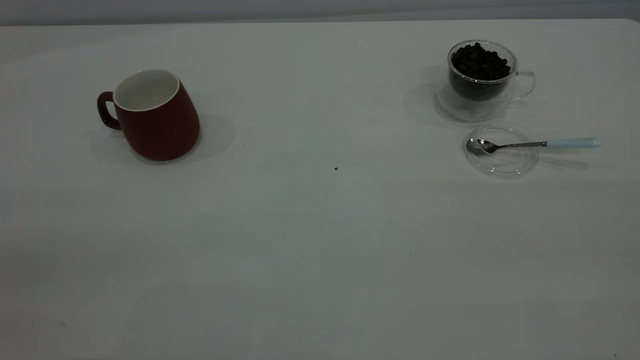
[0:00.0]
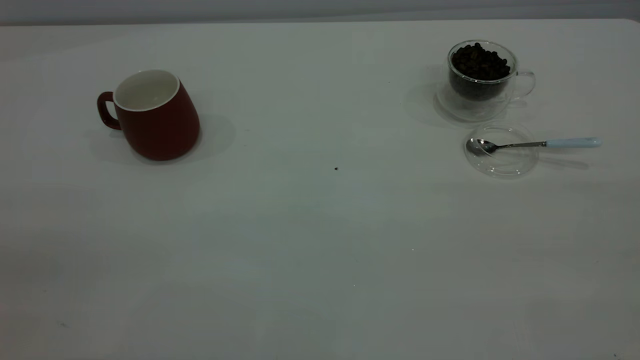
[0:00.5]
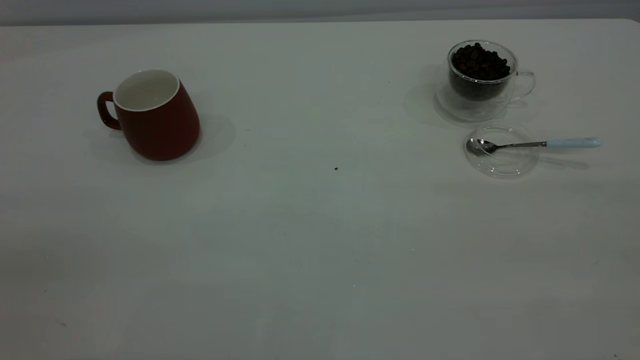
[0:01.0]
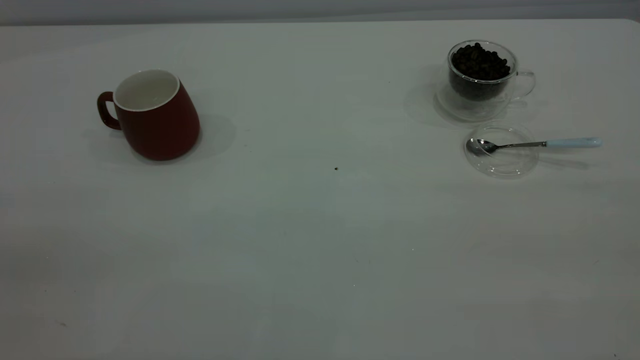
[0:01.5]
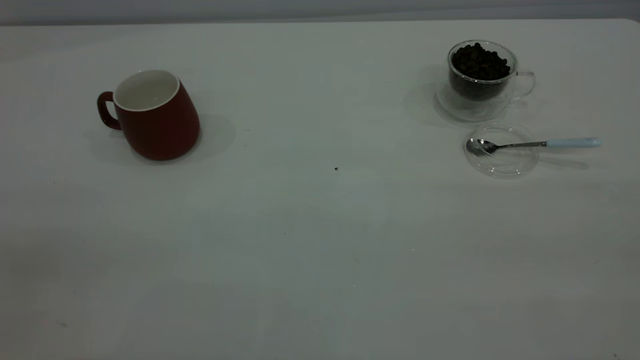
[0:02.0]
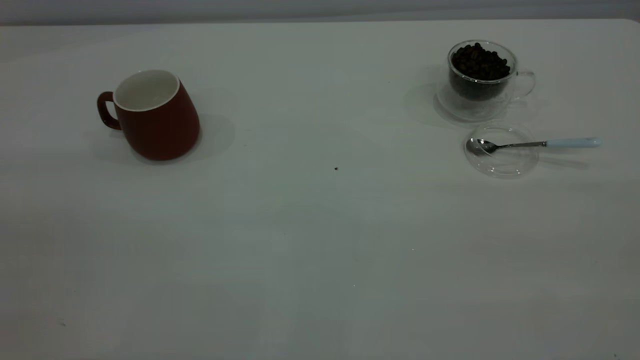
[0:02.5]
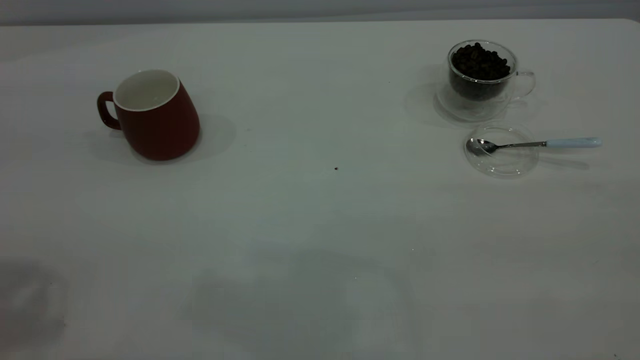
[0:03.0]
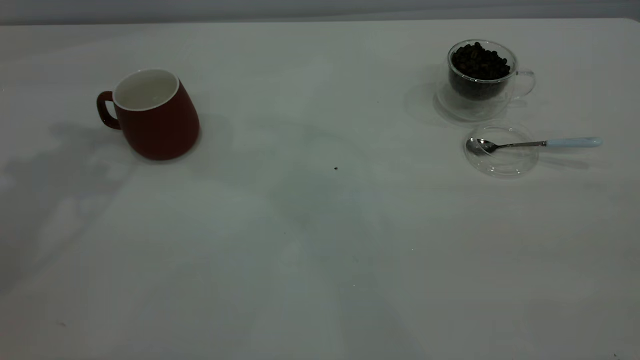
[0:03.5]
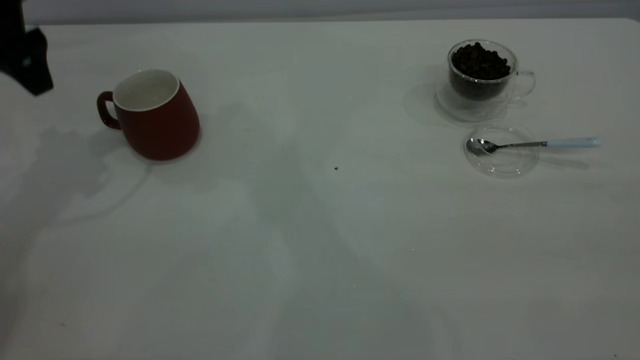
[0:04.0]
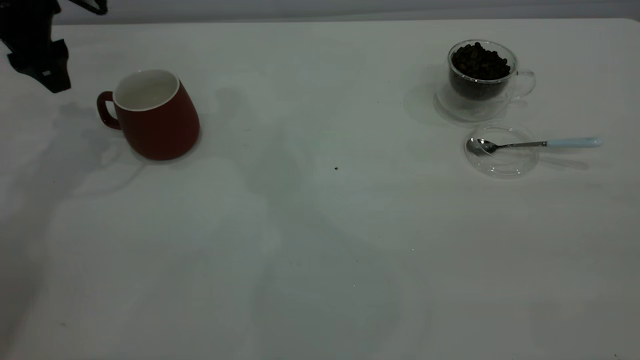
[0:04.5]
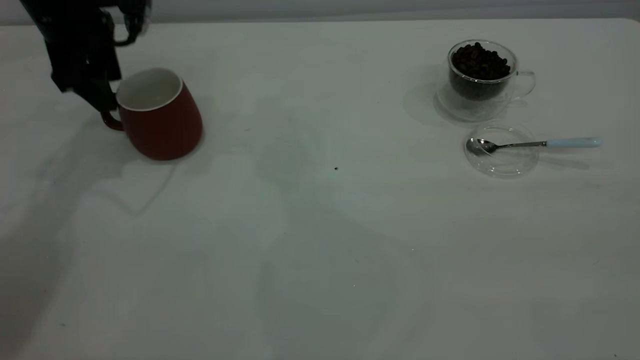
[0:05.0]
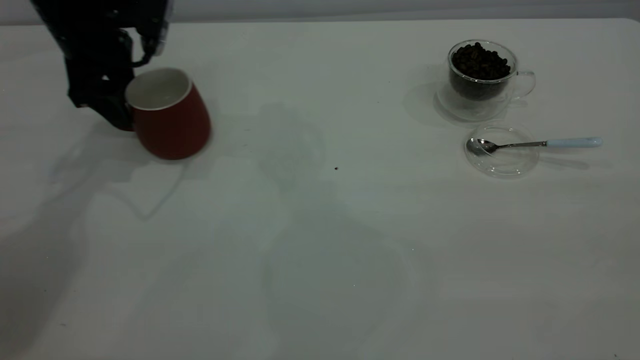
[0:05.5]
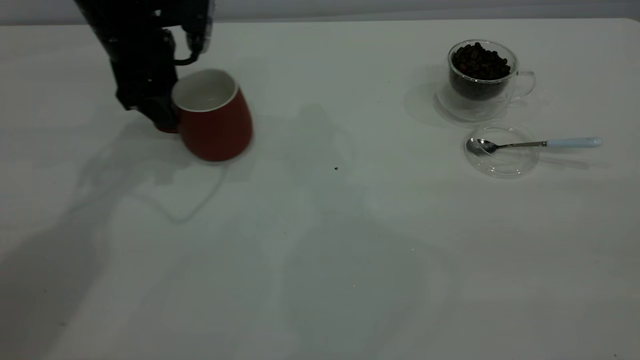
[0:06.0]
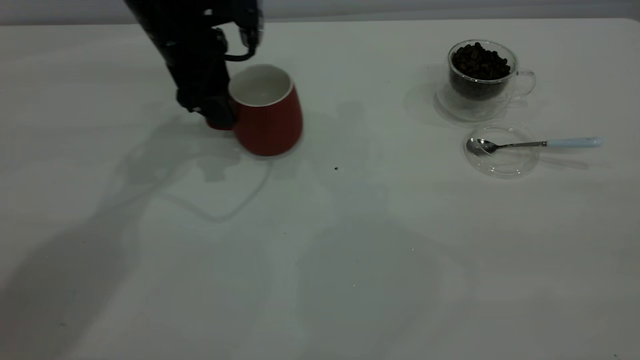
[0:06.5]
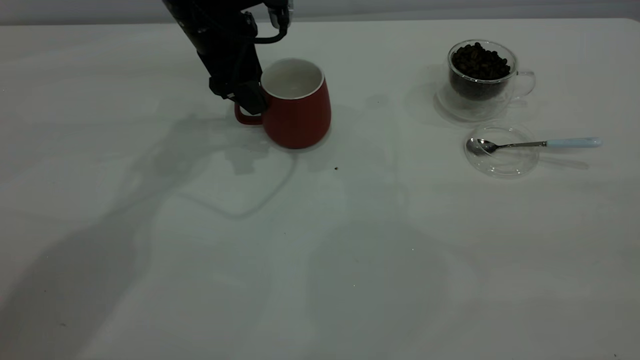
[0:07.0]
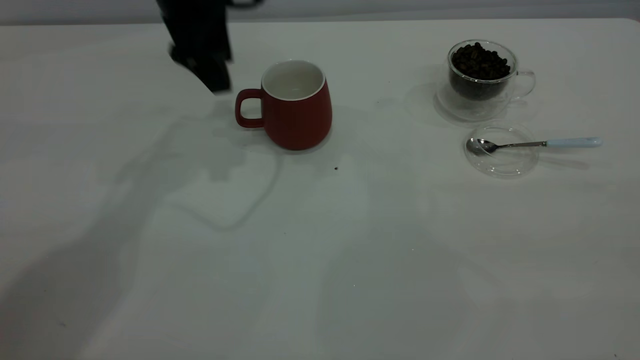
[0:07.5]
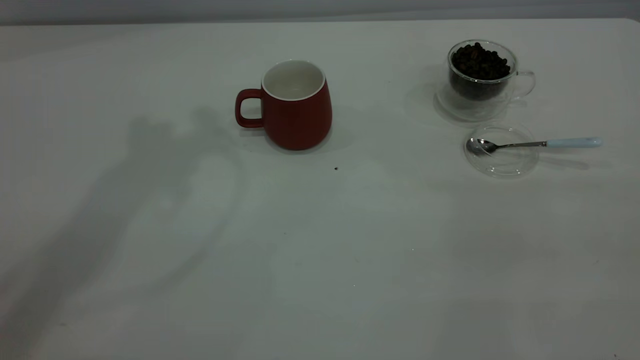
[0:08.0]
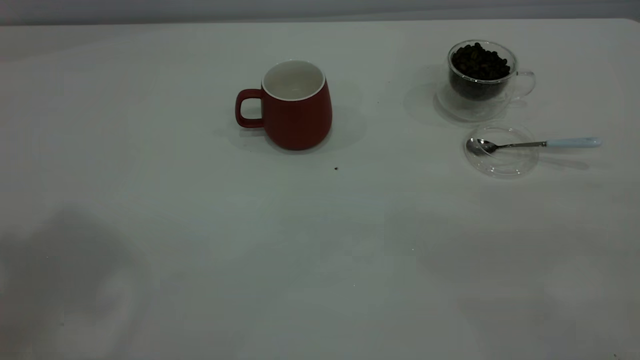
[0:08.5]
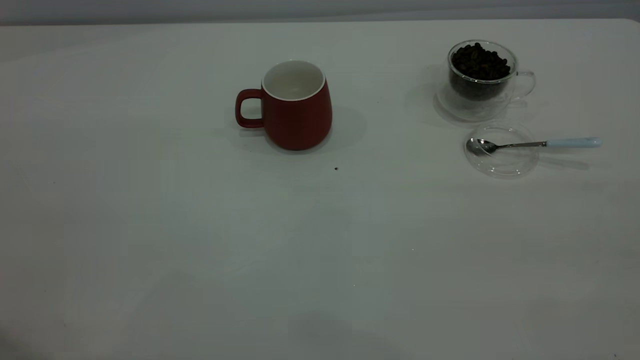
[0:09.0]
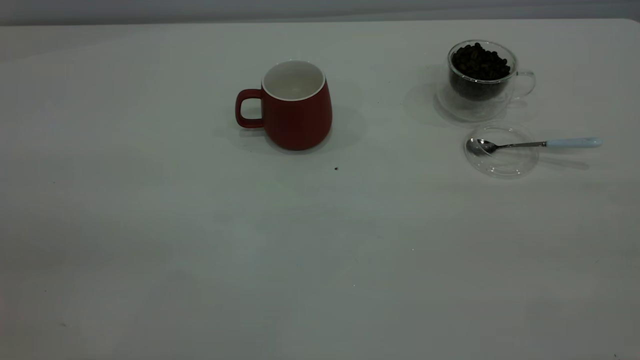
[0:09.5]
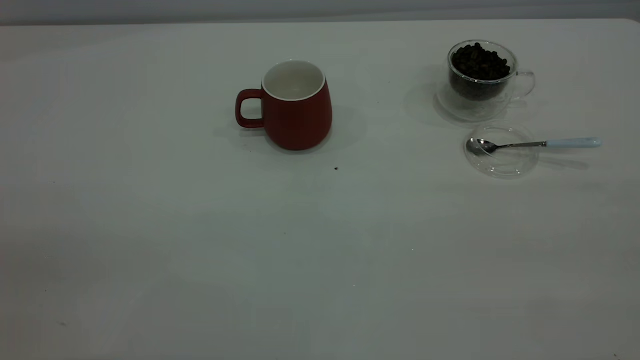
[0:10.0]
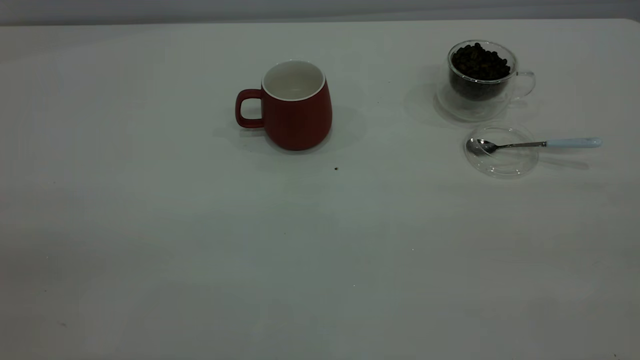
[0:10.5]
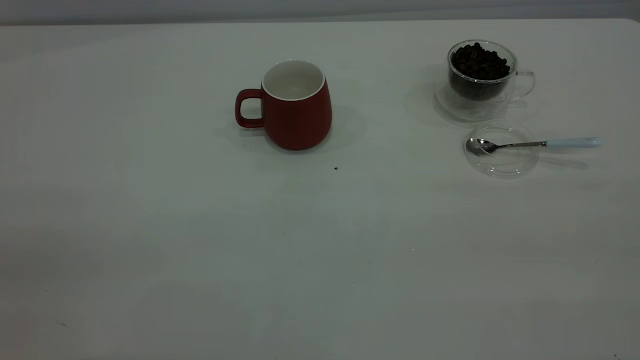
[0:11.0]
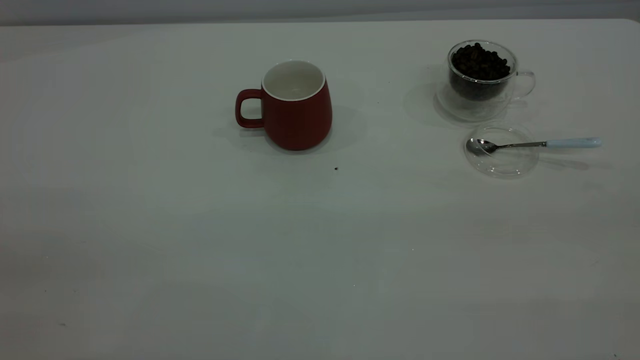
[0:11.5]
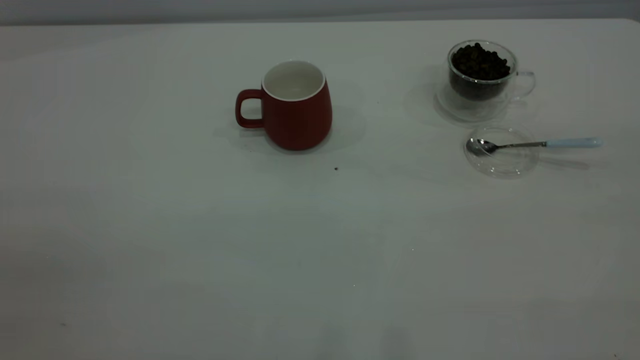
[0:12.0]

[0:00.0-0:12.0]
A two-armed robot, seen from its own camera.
Task of the whole recording: the left gripper place the red cup in the center of the table, the right gripper take the blue spoon from the cup lid and scoop out the coffee beans from the coffee cup and put them into the red cup, the right gripper put the spoon back into the cup lid.
Step, 0:00.0 to 0:07.0: Move the cup to the center of view.
0:00.0 to 0:02.0: The two grippers keep their place.
0:02.0 to 0:04.0: The left gripper goes approximately 40 cm forward.
0:04.0 to 0:06.0: The left gripper travels to the right and downward by roughly 10 cm.
0:06.0 to 0:08.0: The left gripper heads upward, covering approximately 30 cm.

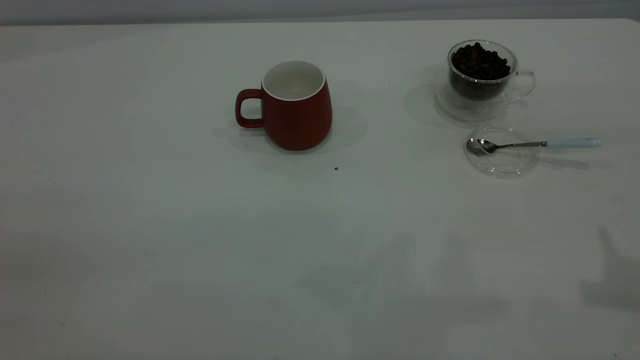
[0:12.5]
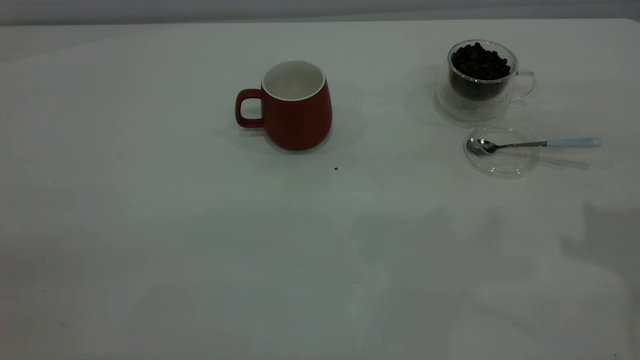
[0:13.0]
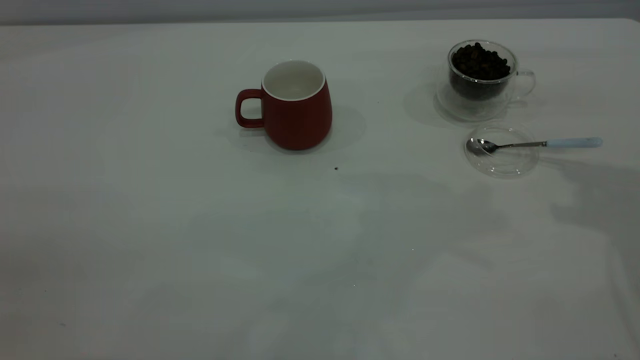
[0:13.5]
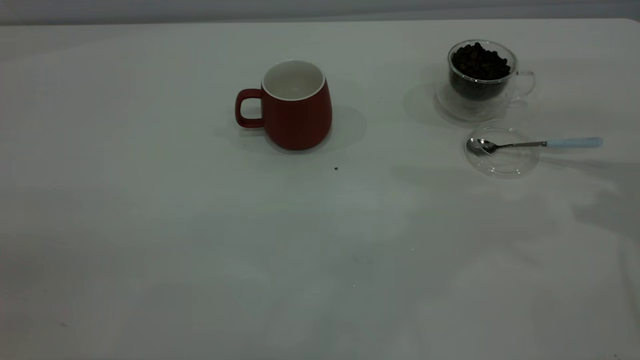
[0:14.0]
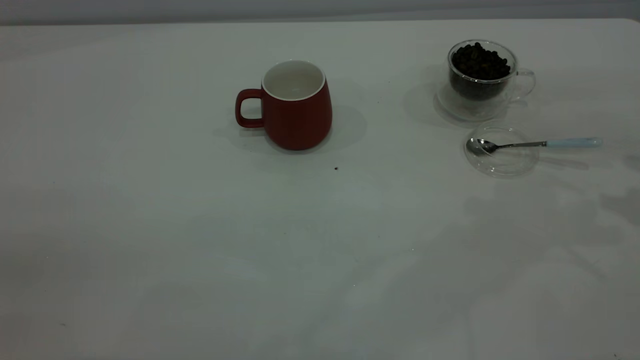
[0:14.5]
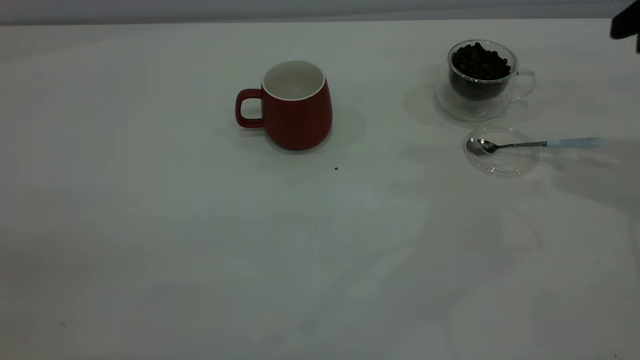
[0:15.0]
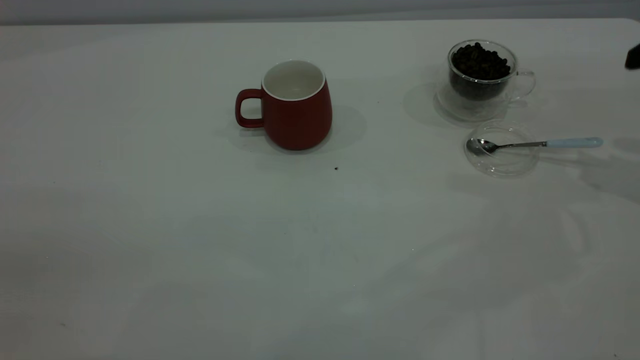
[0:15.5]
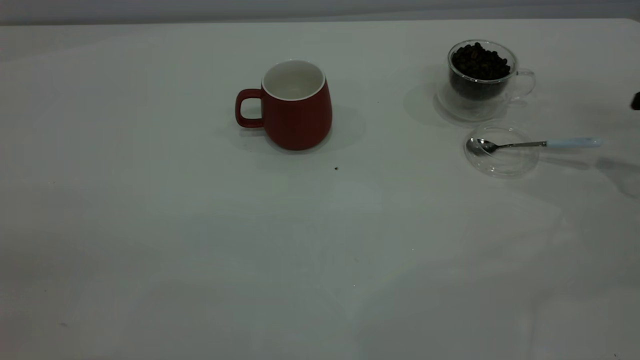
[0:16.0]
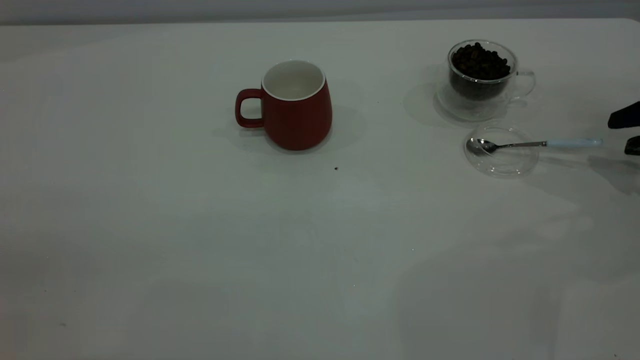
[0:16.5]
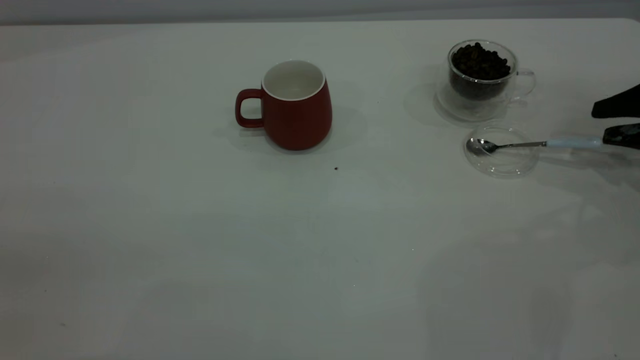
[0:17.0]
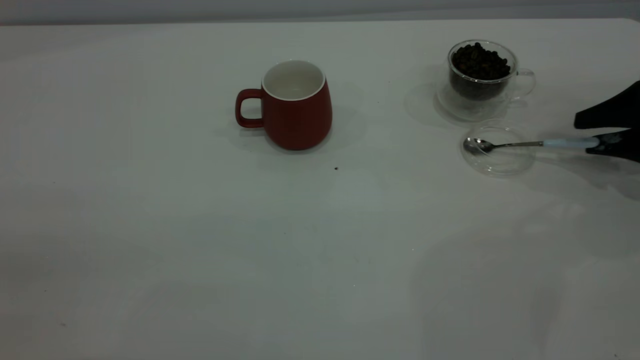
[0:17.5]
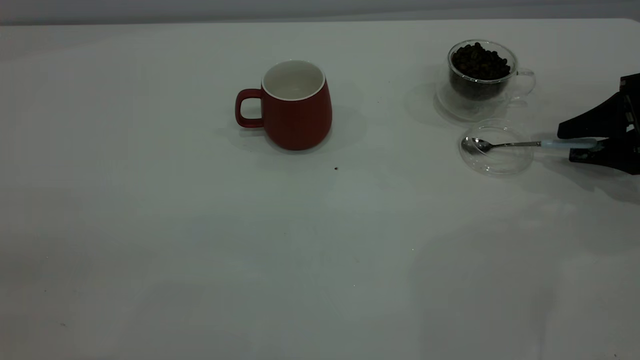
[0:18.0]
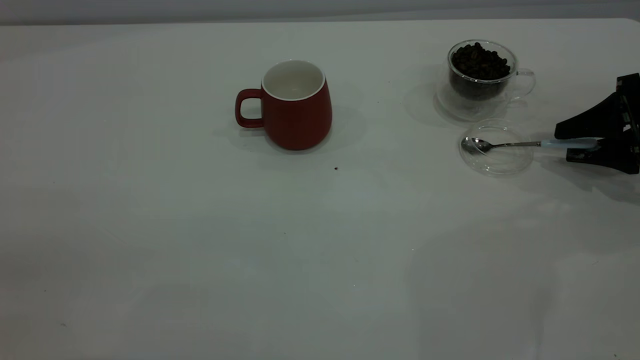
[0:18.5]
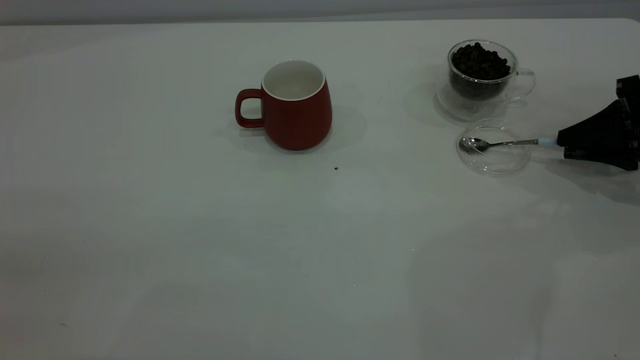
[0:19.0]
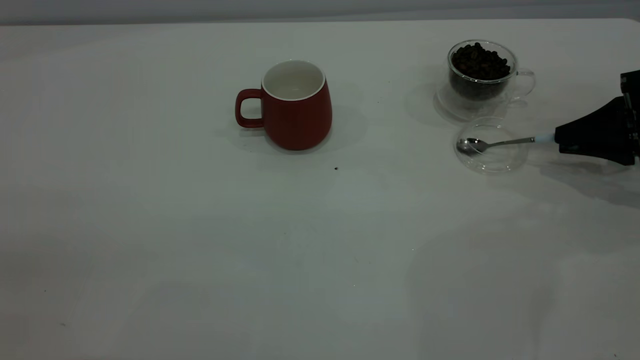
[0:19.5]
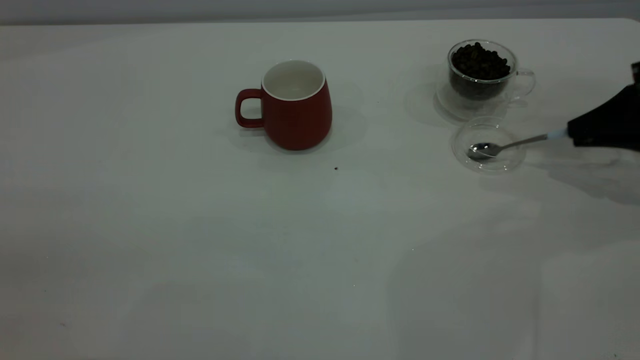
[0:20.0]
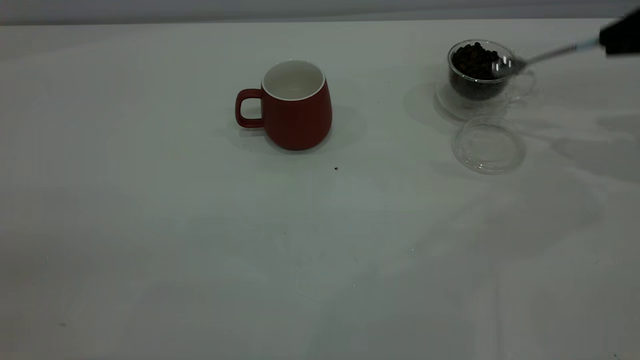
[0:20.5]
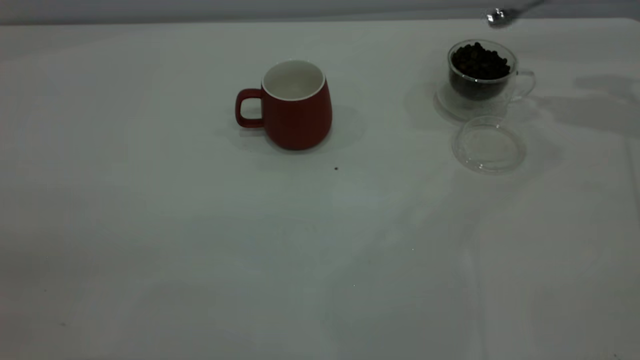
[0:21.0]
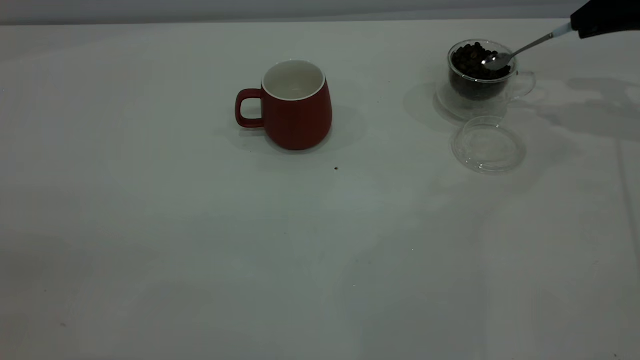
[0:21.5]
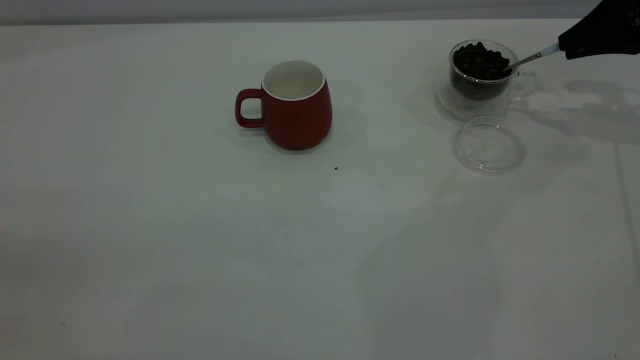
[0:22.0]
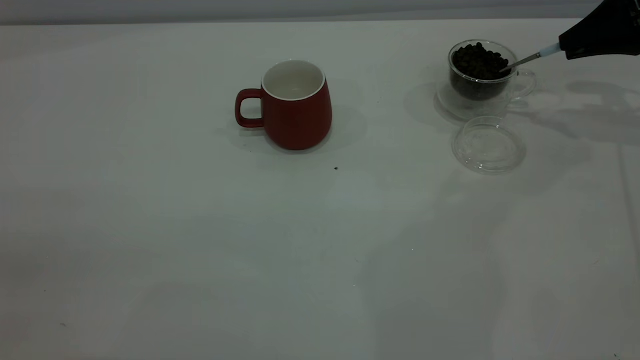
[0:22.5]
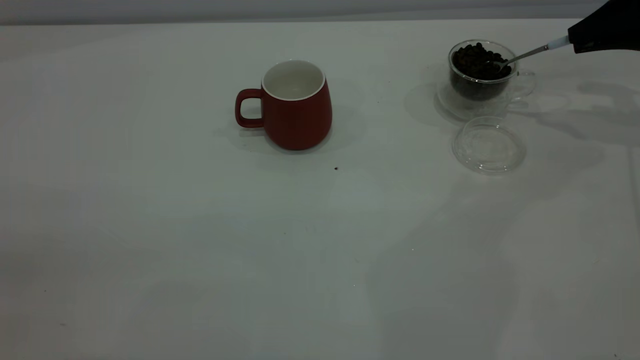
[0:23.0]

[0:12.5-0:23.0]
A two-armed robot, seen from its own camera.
Task of the whole recording: the left gripper place the red cup in the center of the table, the right gripper take the blue spoon from the cup lid and scoop out the coffee beans from the coffee cup and put them into the red cup, the right gripper put the spoon back into the cup lid.
Step, 0:12.5 to 0:20.0: Pick up the spoon.
0:14.5 to 0:16.5: The right gripper heads downward, covering about 10 cm.
0:16.5 to 0:19.0: The right gripper closes up.
0:19.0 to 0:21.0: The right gripper heads upward and forward, covering approximately 20 cm.
0:21.0 to 0:23.0: The right gripper moves downward, approximately 5 cm.
